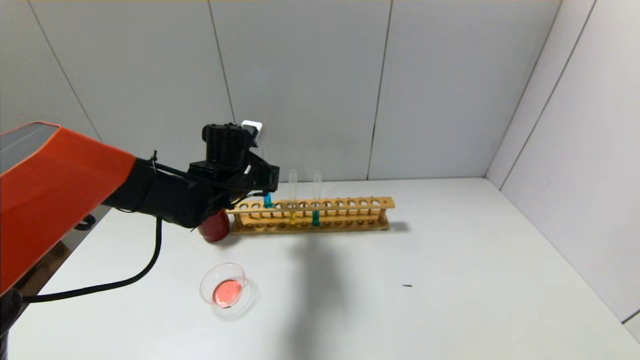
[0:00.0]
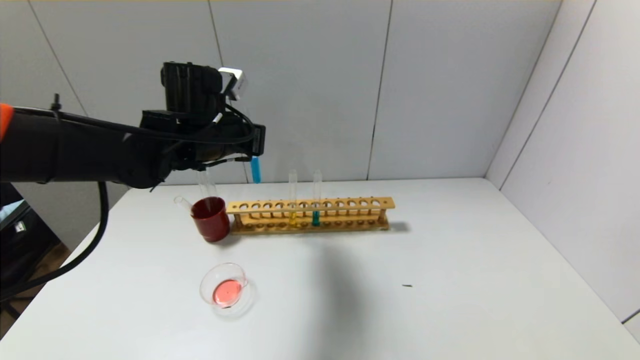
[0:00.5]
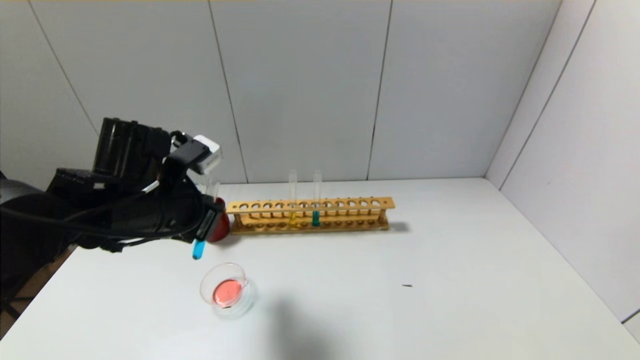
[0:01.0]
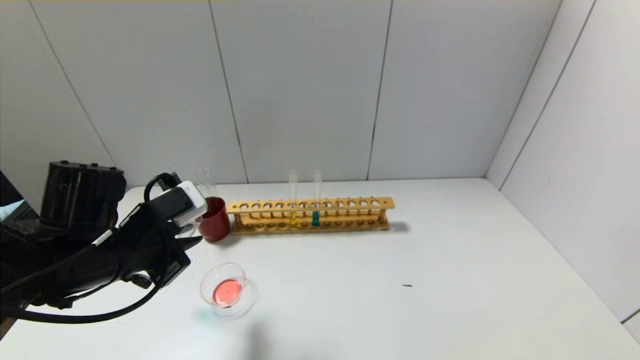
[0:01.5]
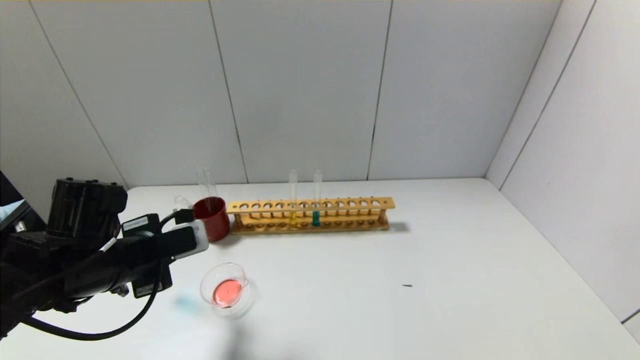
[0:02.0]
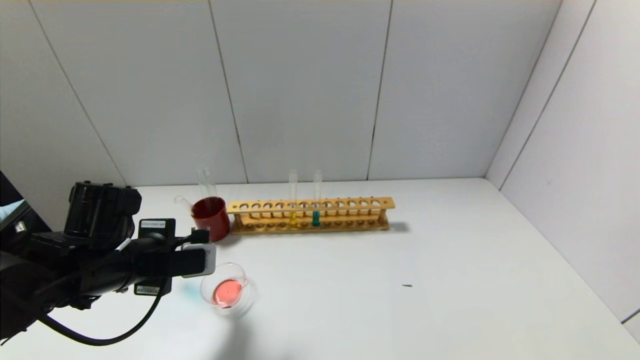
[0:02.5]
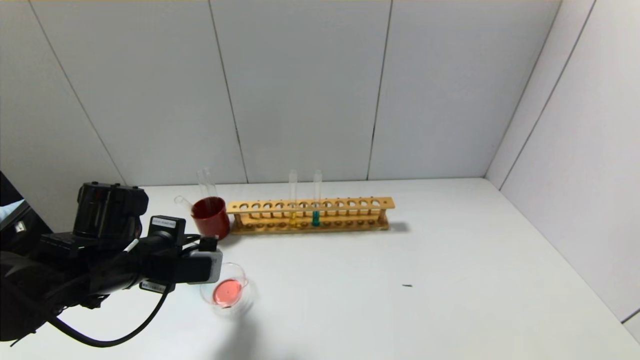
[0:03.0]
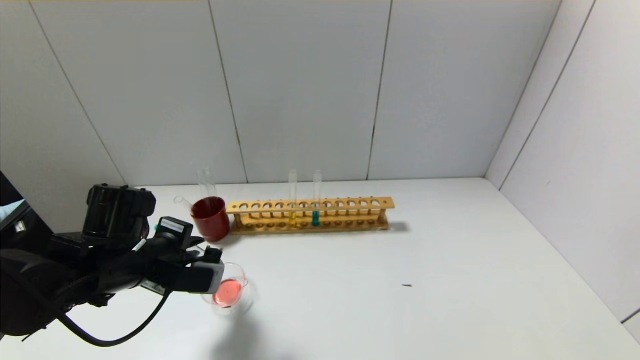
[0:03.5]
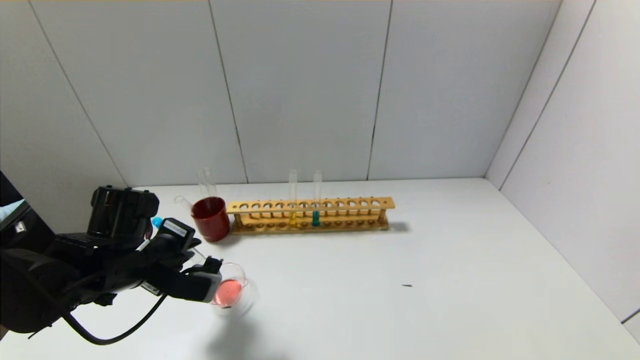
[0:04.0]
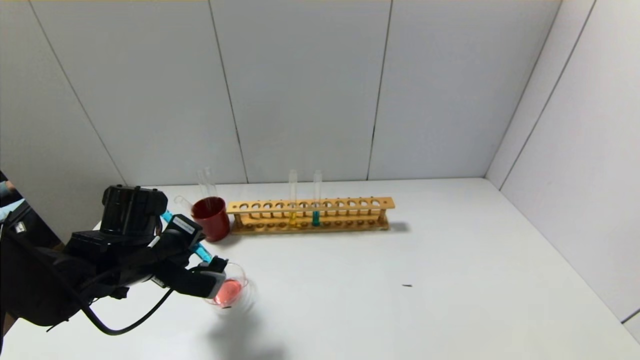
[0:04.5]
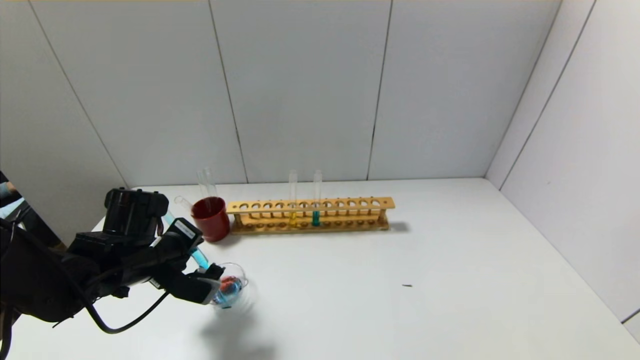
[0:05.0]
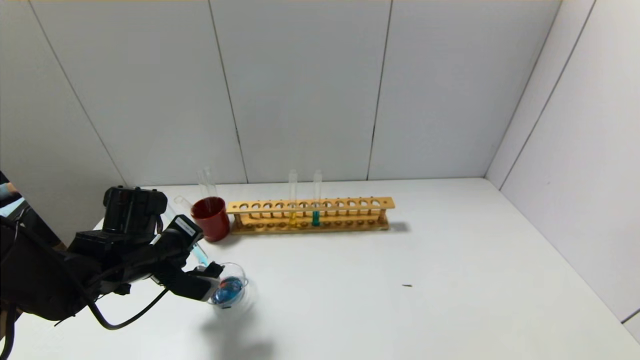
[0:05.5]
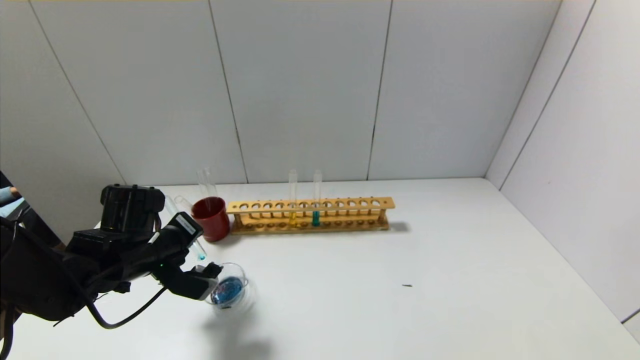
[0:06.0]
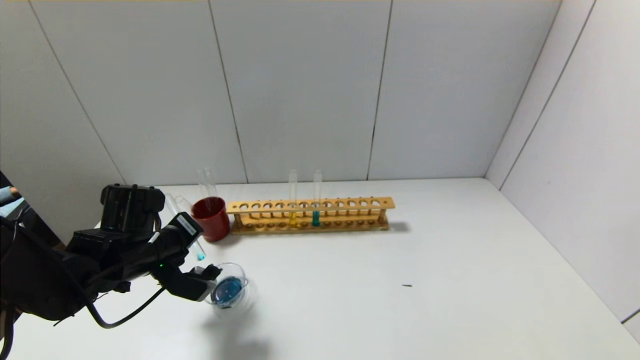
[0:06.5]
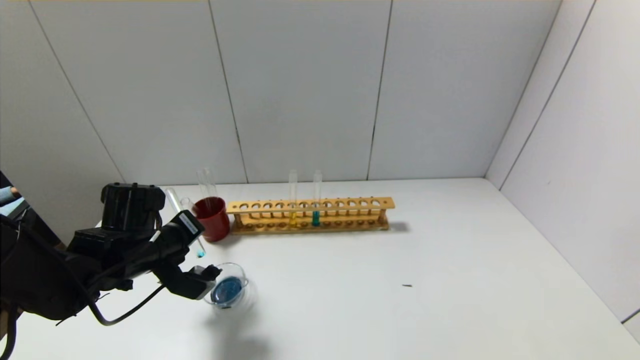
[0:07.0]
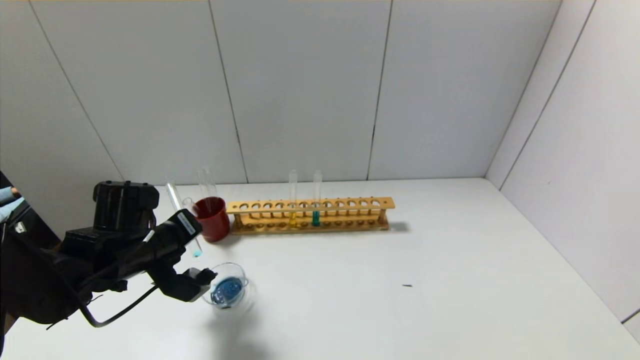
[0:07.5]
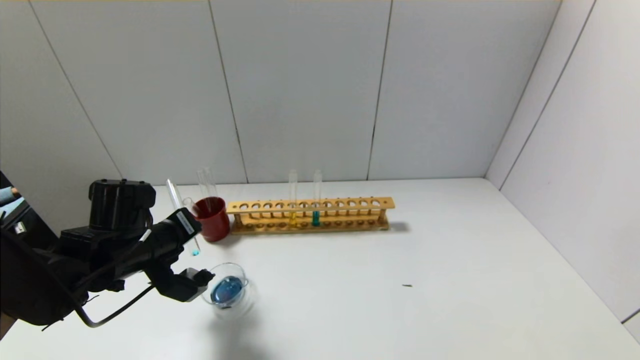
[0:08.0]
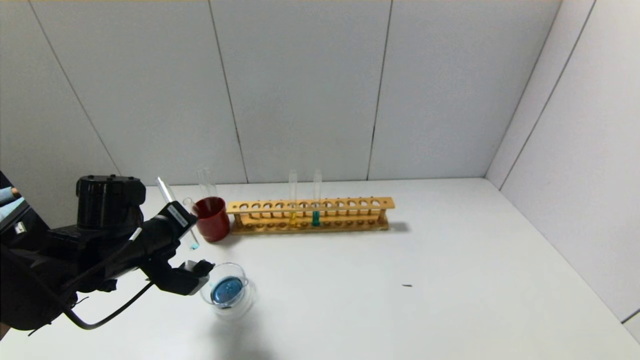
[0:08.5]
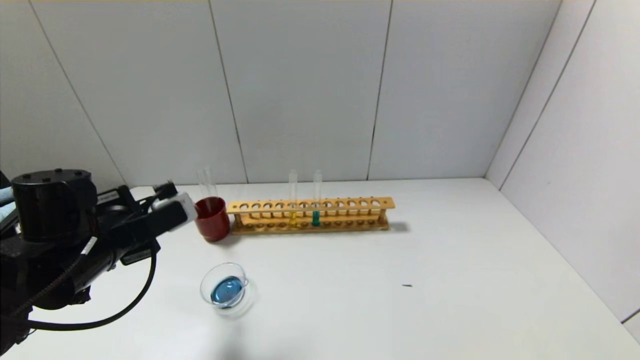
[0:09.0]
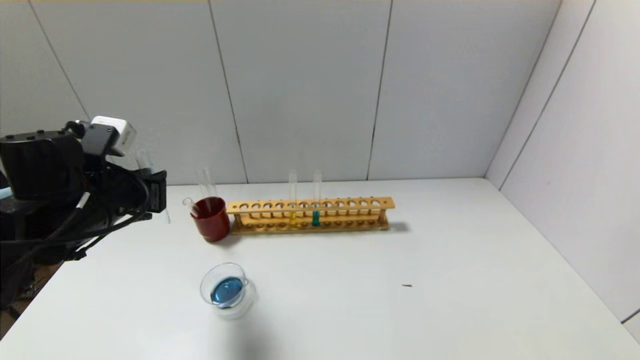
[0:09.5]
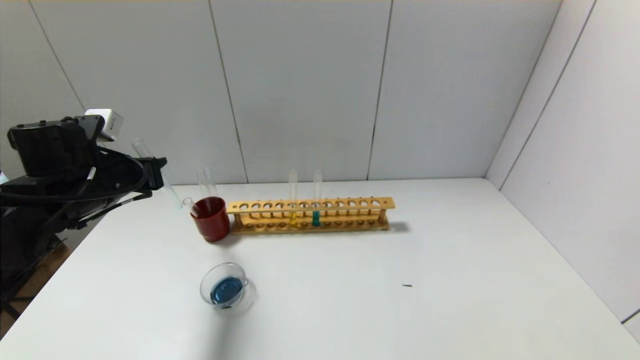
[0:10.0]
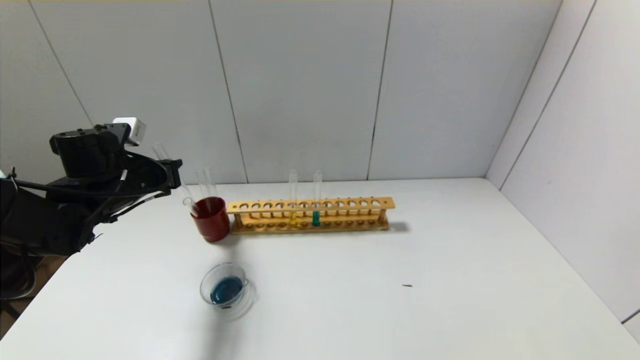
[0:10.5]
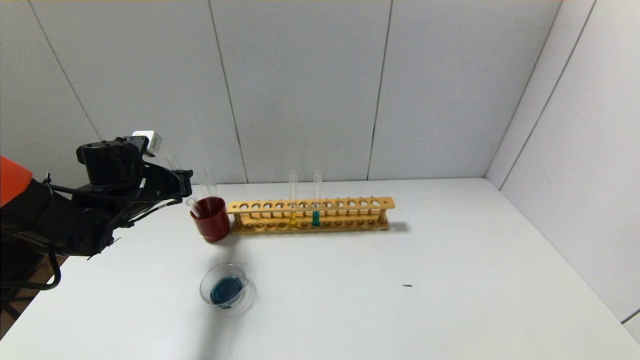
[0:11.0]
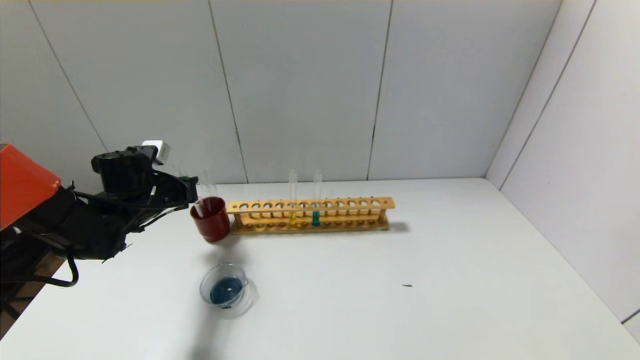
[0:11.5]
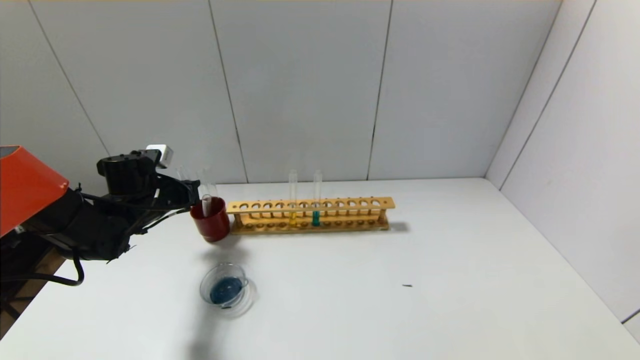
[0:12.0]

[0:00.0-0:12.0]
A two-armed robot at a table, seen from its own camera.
Step, 0:00.0 to 0:08.5: Pour the blue reagent into the graduated cylinder with the left gripper.
0:00.0 to 0:02.0: The left gripper moves backward and to the left, about 20 cm.
0:04.0 to 0:06.0: There are only small adjustments of the grippers.
0:06.0 to 0:08.0: The grippers make only small movements.
0:08.0 to 0:10.0: The left gripper moves upward and to the left, approximately 10 cm.
0:10.0 to 0:12.0: The left gripper moves downward and forward, roughly 10 cm.

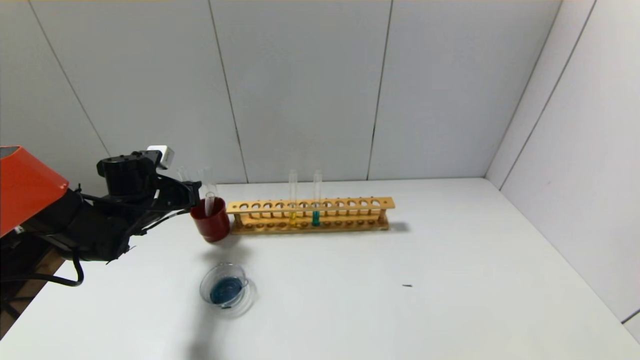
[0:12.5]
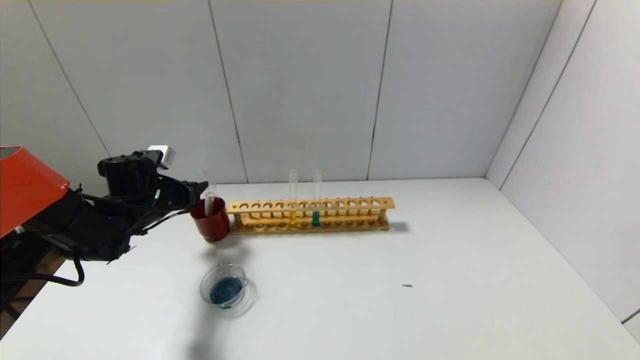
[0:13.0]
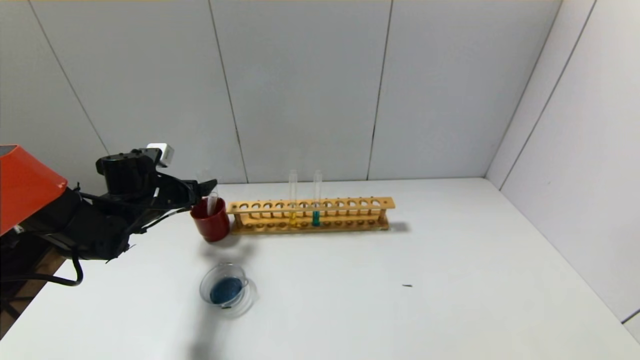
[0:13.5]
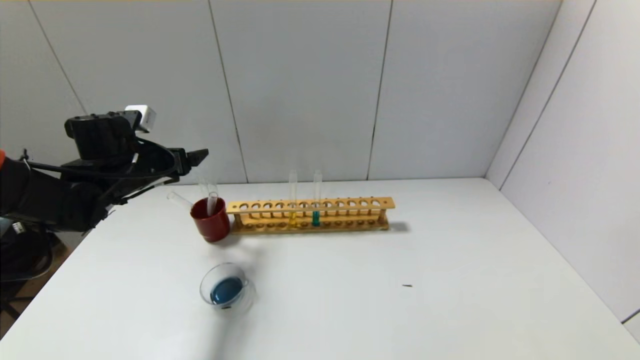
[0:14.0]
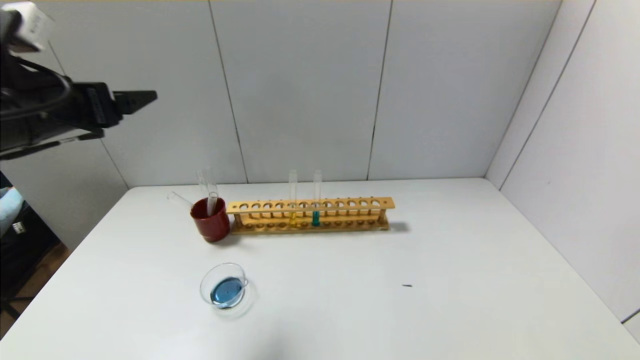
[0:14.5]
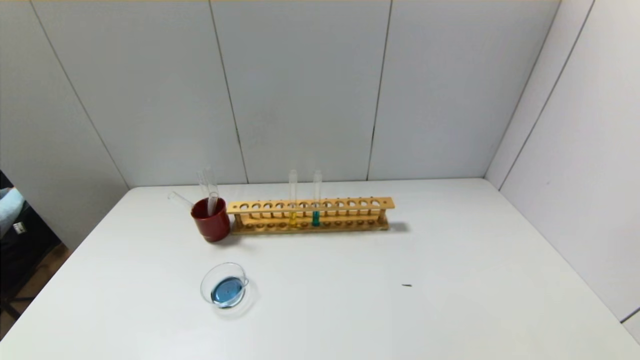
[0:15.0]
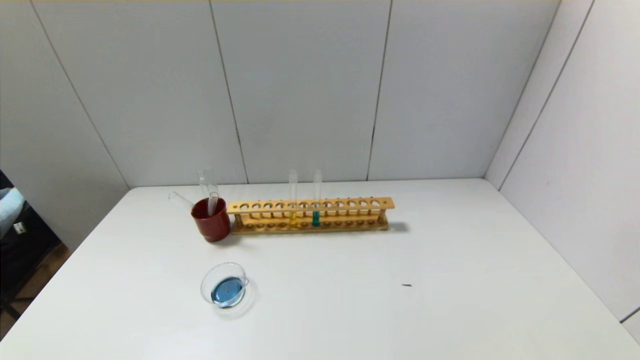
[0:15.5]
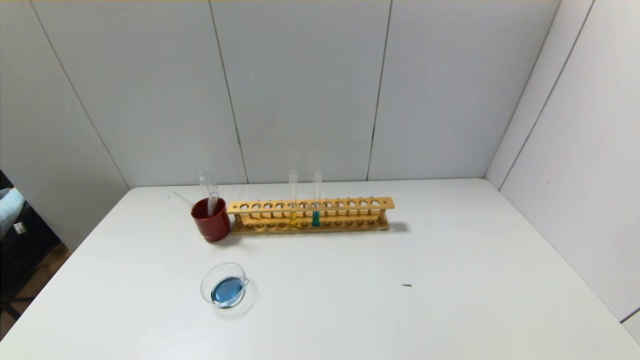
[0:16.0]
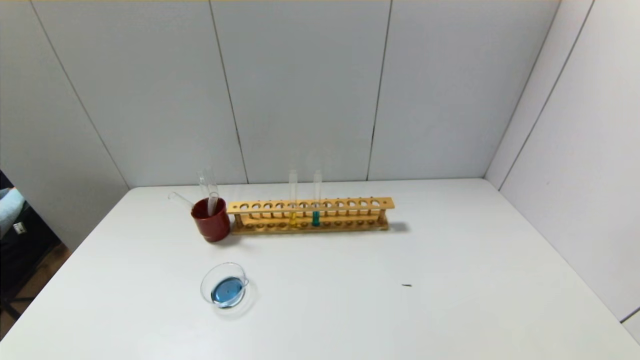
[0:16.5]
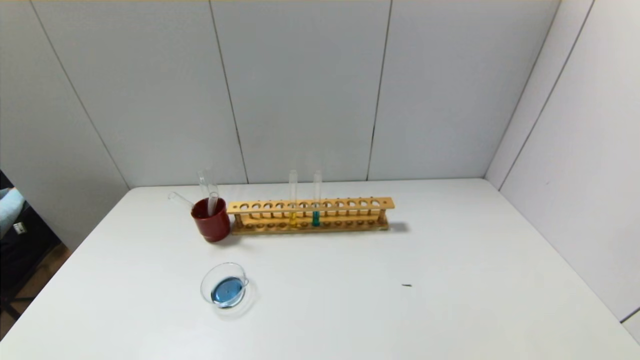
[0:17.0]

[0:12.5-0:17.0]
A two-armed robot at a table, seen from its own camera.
0:12.5 to 0:14.5: The left gripper moves upward and backward, approximately 25 cm, and opens its fingers.
0:14.5 to 0:17.0: The left gripper goes about 35 cm backward and downward.
